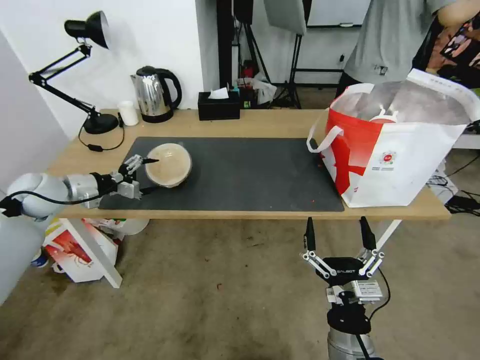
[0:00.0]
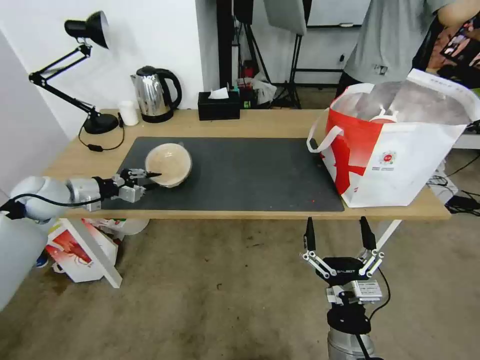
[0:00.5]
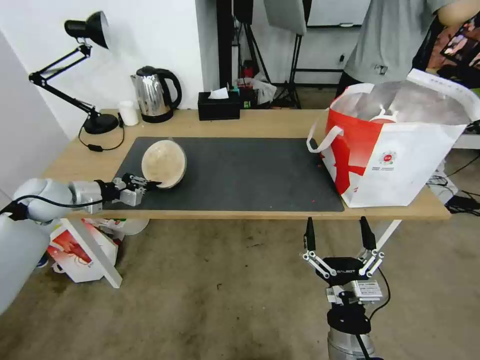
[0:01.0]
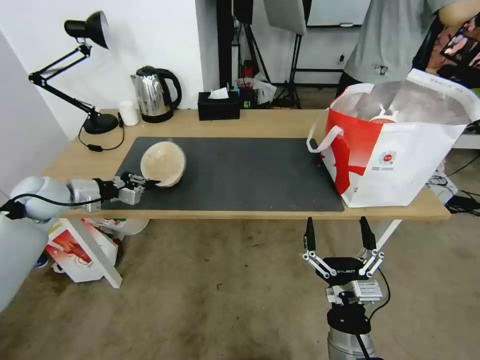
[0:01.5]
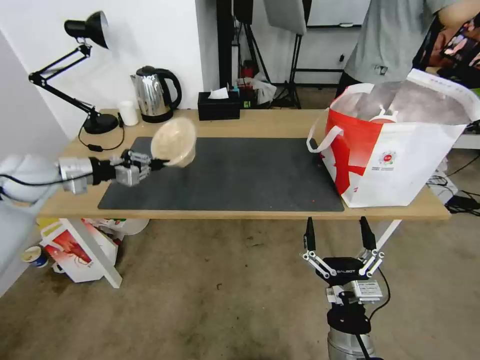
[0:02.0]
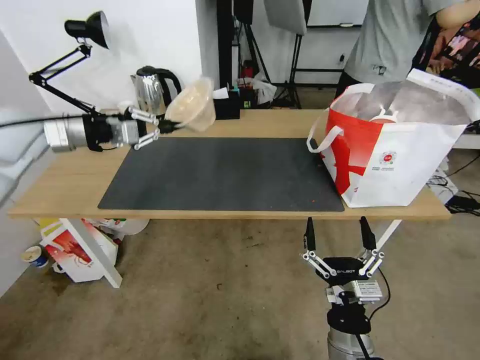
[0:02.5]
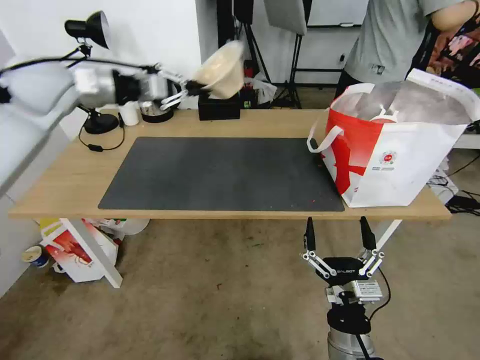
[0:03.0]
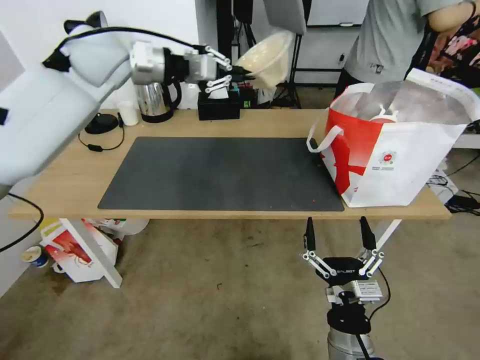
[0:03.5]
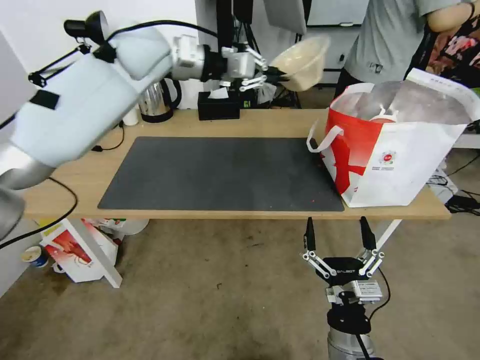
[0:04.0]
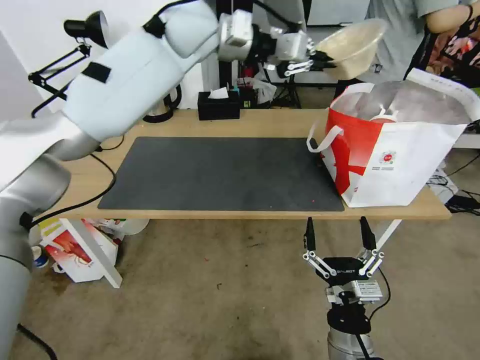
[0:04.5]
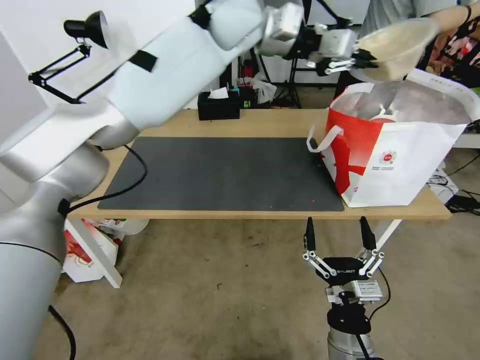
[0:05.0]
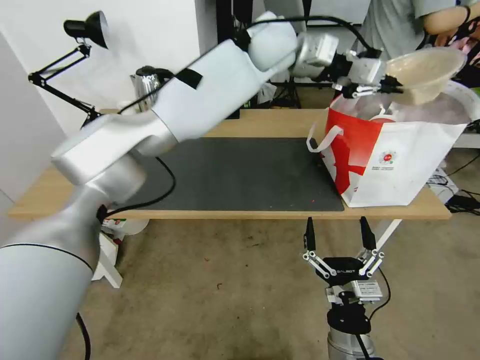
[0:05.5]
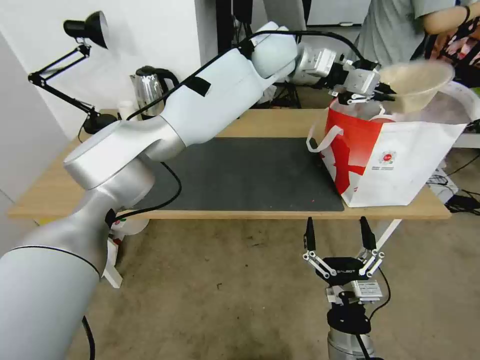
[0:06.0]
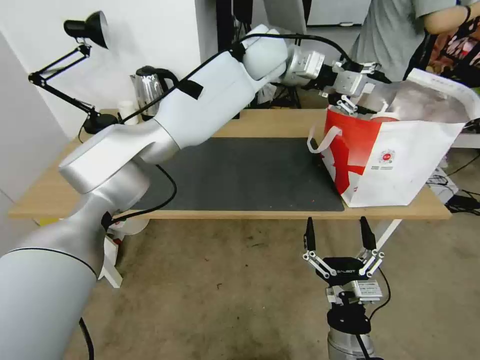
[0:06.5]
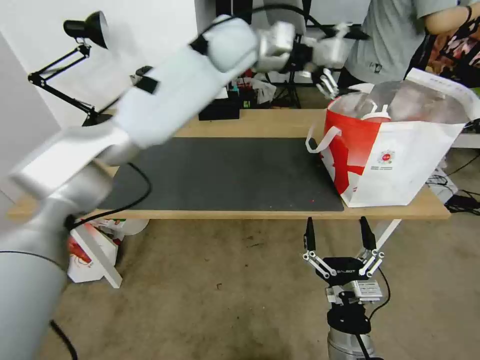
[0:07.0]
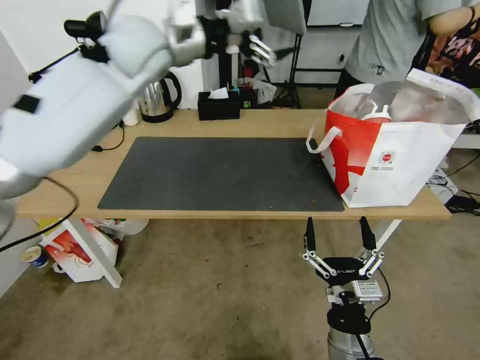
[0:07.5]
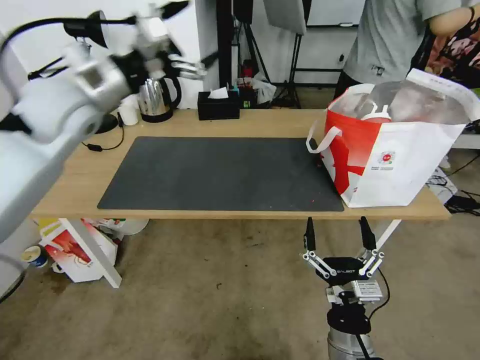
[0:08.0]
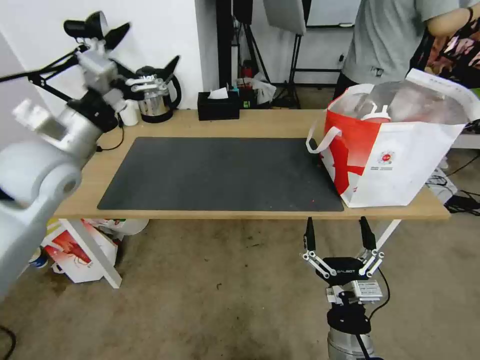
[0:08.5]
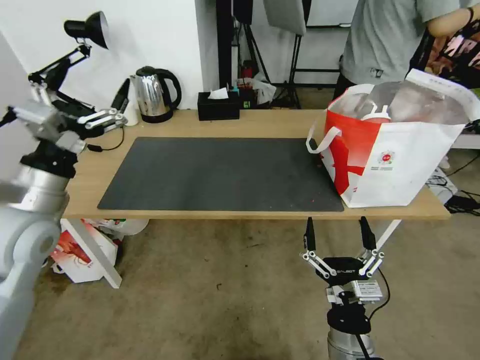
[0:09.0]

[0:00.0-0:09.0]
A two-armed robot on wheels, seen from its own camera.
Task of the whole recording: Pick up the trash from the table and place it into the takeout bag.
0:00.0 to 0:02.0: The left gripper moves upward, approximately 5 cm, and closes up.
0:02.0 to 0:04.5: The left gripper moves to the right, upward and forward, roughly 40 cm.
0:04.5 to 0:07.0: The left gripper moves to the right, some 5 cm, and opens up.
0:07.0 to 0:09.0: The left gripper travels to the left, backward and downward by approximately 50 cm.

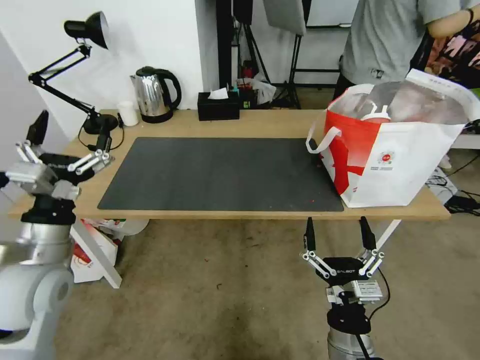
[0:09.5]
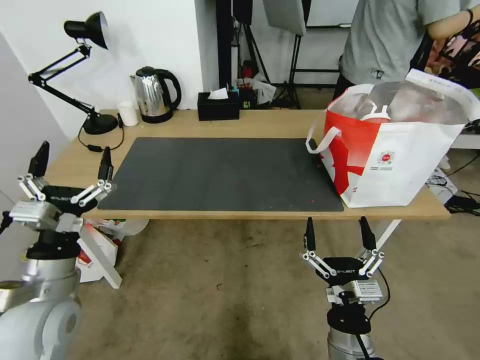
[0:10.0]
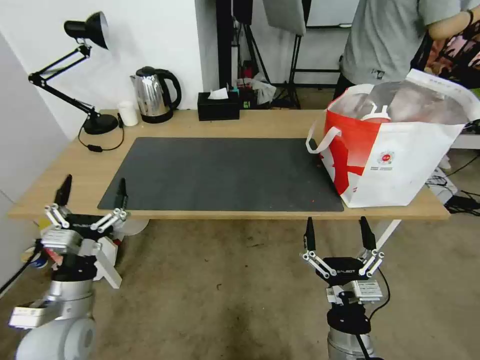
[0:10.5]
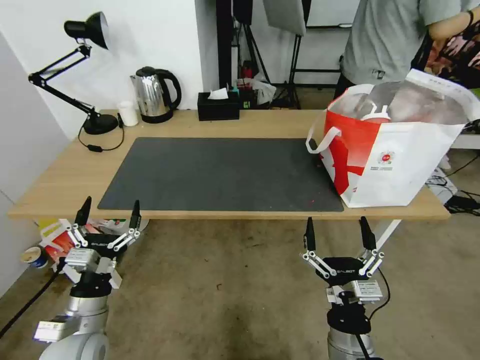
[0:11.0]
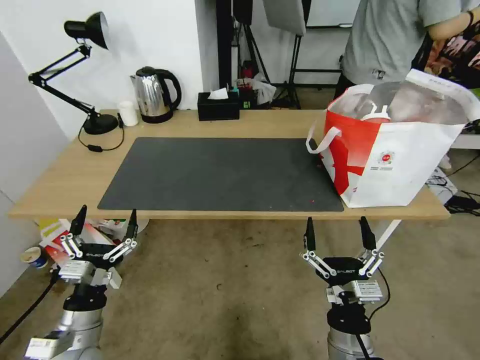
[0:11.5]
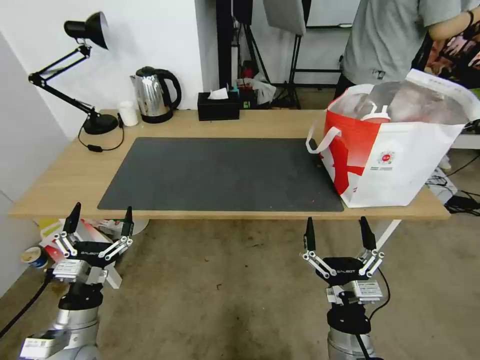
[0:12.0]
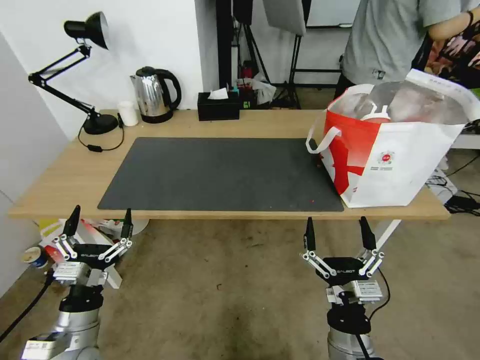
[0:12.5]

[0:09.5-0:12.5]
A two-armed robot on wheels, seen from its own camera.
Task of the whole recording: Pick up the trash from the table and place it into the takeout bag.
0:09.5 to 0:11.0: The left gripper shifts approximately 15 cm downward and backward.
0:11.0 to 0:12.5: There are only small adjustments of the grippers.
